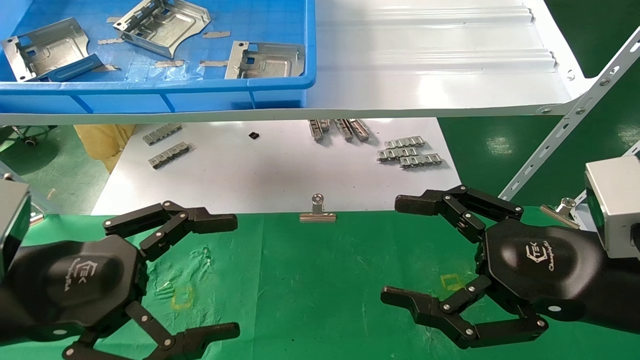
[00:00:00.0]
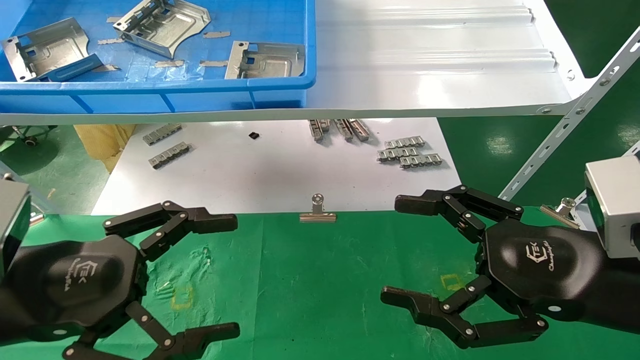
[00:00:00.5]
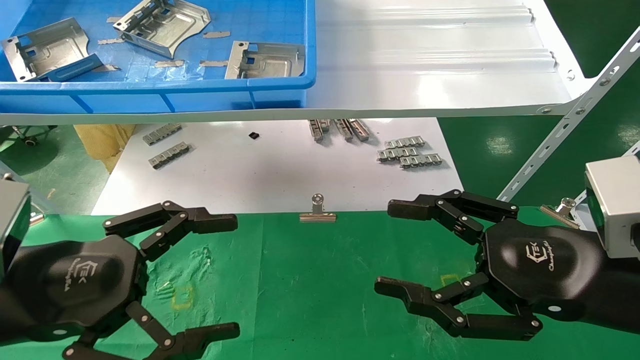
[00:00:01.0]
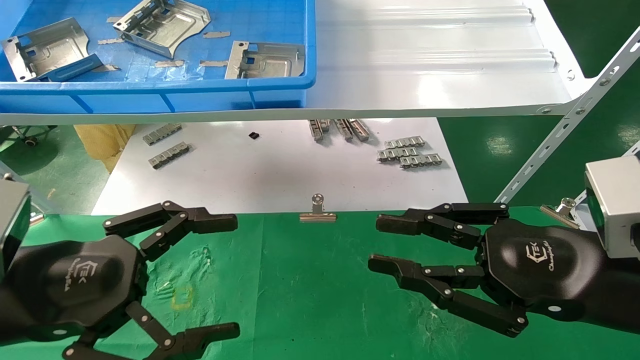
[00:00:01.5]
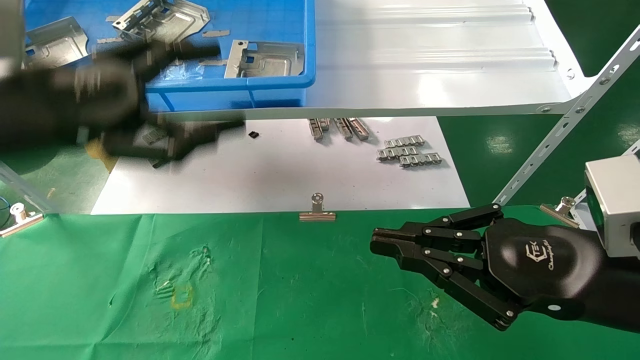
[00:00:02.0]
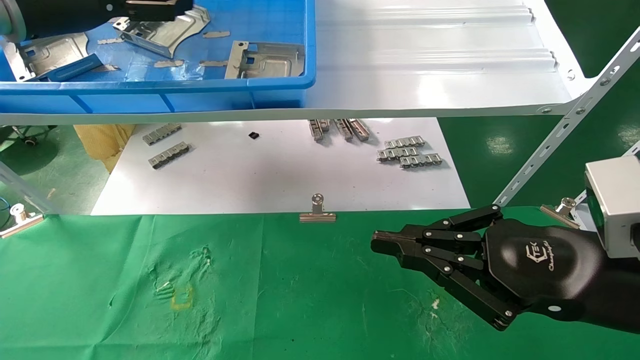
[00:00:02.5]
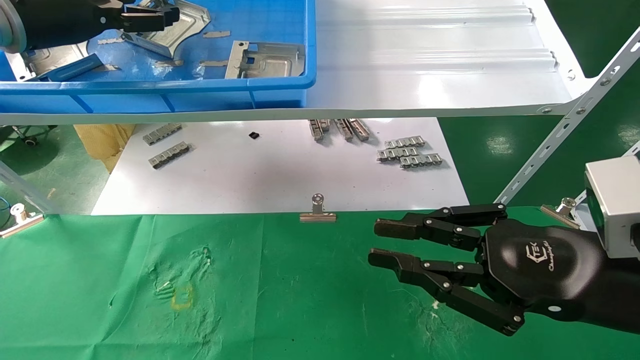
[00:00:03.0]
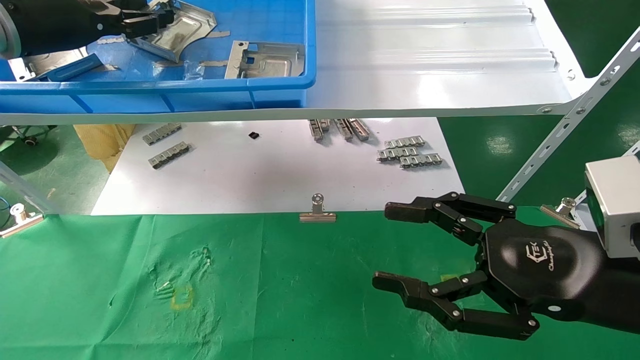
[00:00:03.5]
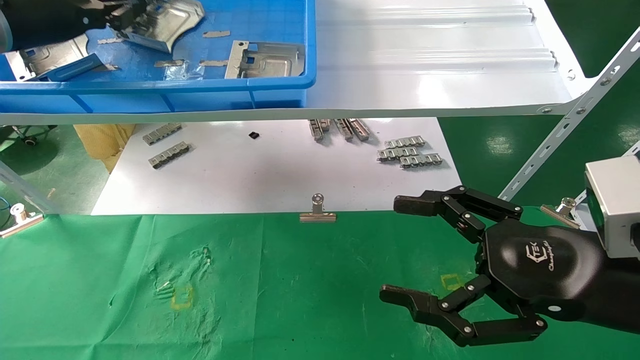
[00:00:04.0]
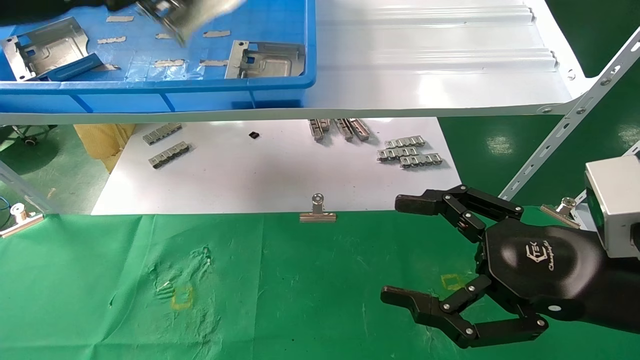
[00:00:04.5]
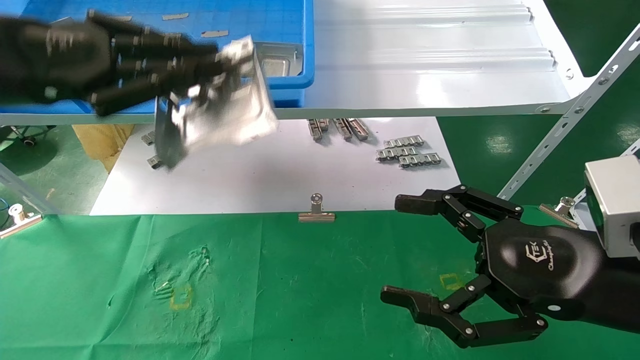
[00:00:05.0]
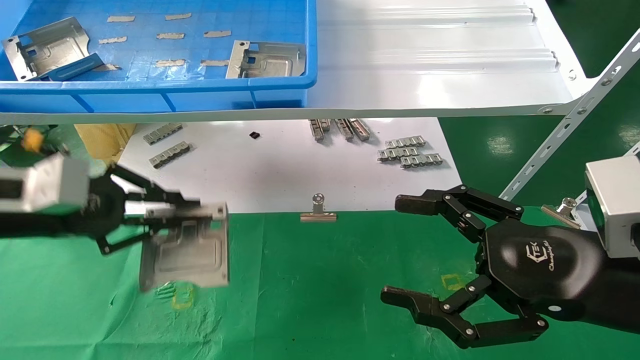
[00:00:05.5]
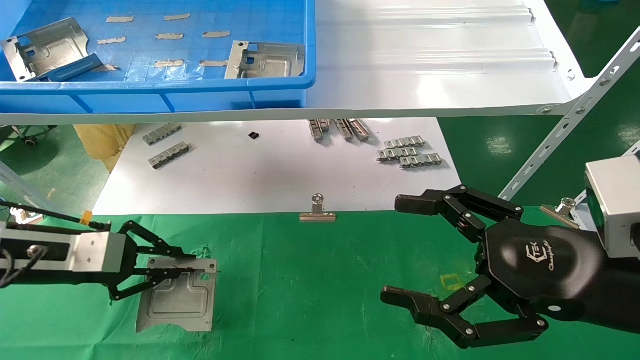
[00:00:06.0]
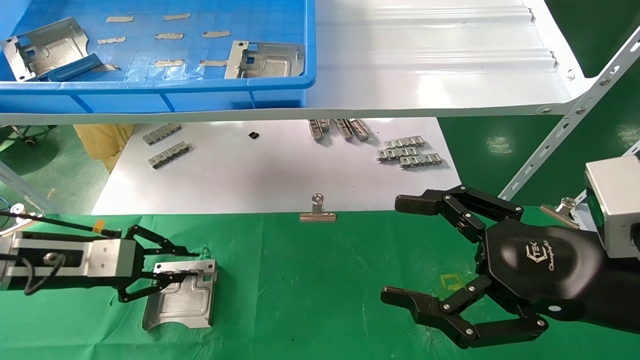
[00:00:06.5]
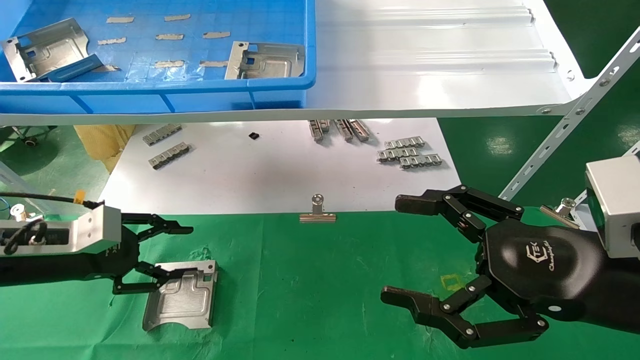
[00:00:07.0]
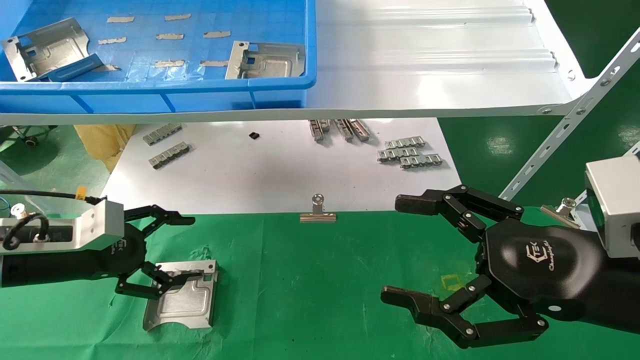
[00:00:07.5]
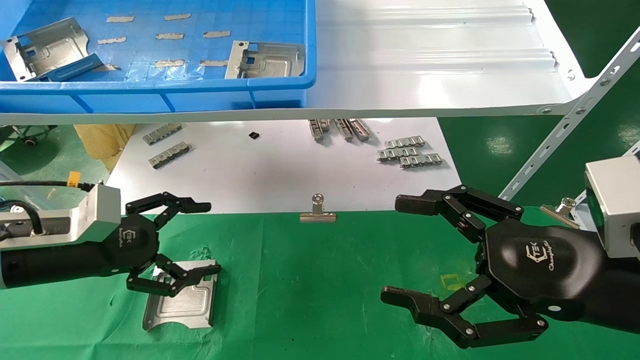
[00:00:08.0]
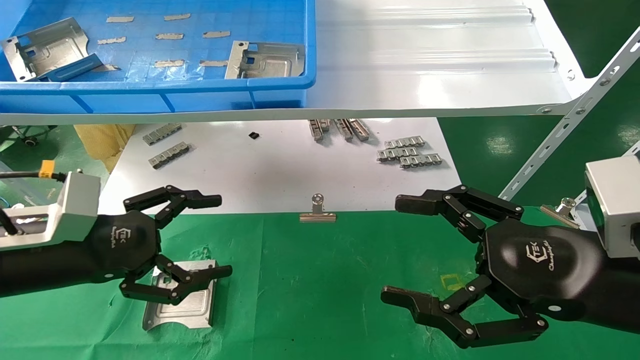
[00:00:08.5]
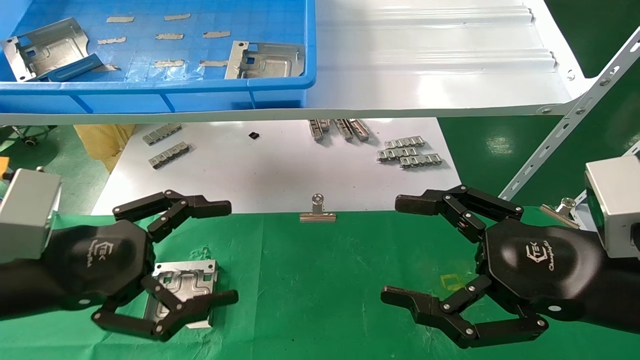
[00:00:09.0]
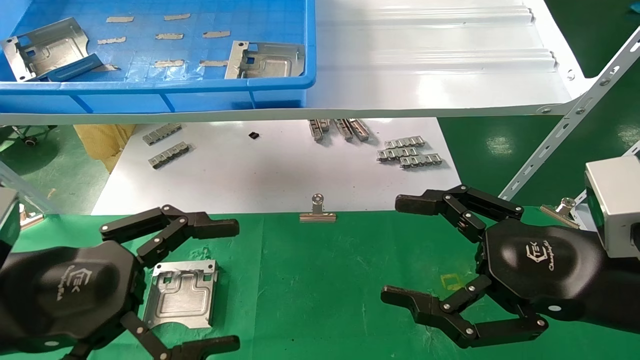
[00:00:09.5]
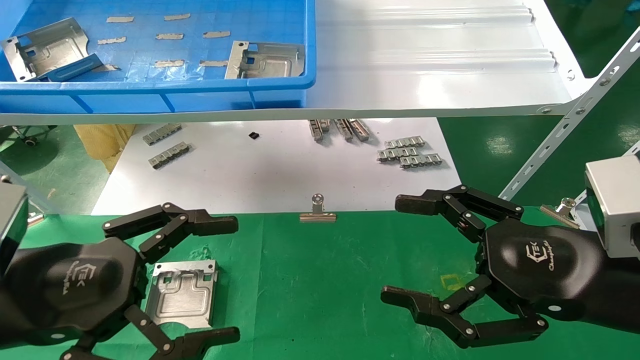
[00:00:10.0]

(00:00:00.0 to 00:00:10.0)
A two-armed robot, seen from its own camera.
Task of the whole recording: use the mechanical arm to pick up the parts and place them on the table.
Step, 00:00:02.0 - 00:00:04.5: Pick up the hard drive bracket from the feeding area.
Step, 00:00:05.0 - 00:00:07.5: Place the hard drive bracket into the box.
00:00:00.0 - 00:00:02.0: The right gripper closes its fingers. The left gripper shifts roughly 15 cm upward and forward.
00:00:02.0 - 00:00:04.0: The left gripper heads forward, upward and to the left, covering roughly 20 cm, and closes up, while the right gripper opens its fingers.
00:00:04.0 - 00:00:06.0: The left gripper goes approximately 25 cm downward.
00:00:06.0 - 00:00:08.0: The left gripper opens its fingers.
00:00:08.0 - 00:00:10.0: The left gripper shifts roughly 15 cm backward and to the right.

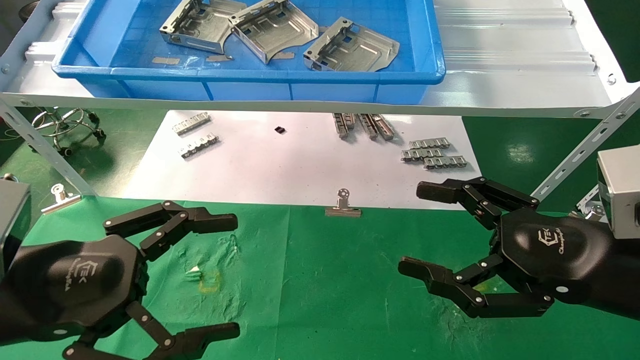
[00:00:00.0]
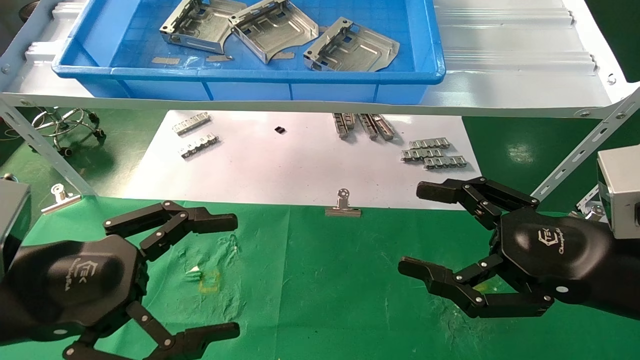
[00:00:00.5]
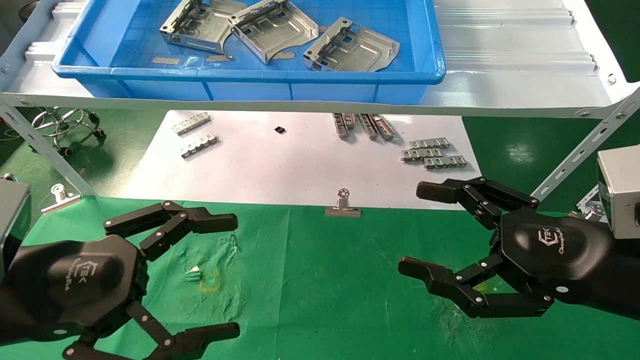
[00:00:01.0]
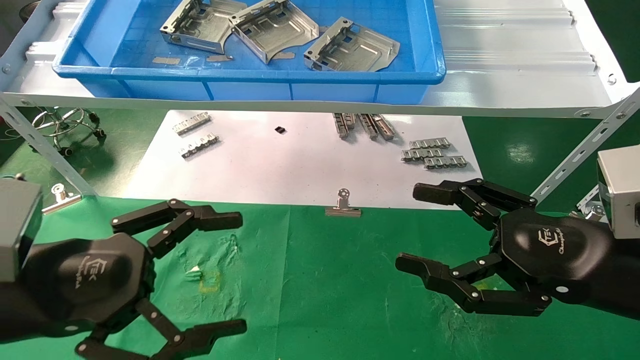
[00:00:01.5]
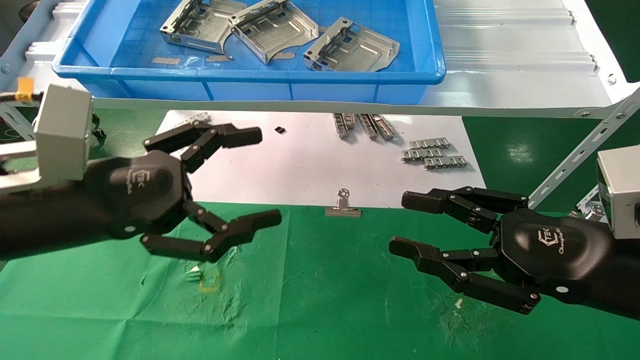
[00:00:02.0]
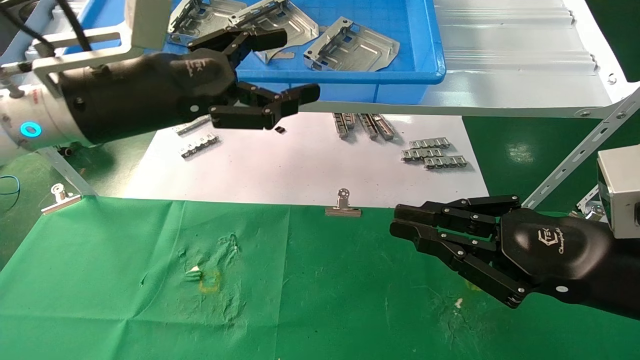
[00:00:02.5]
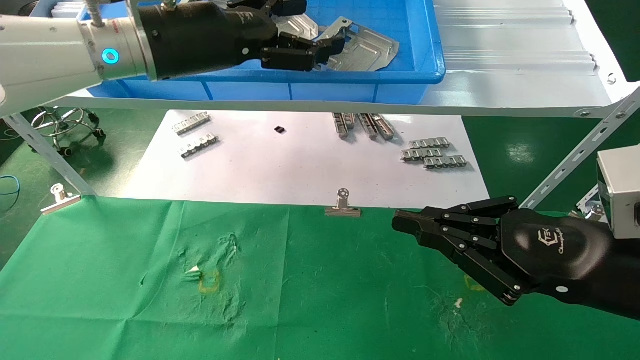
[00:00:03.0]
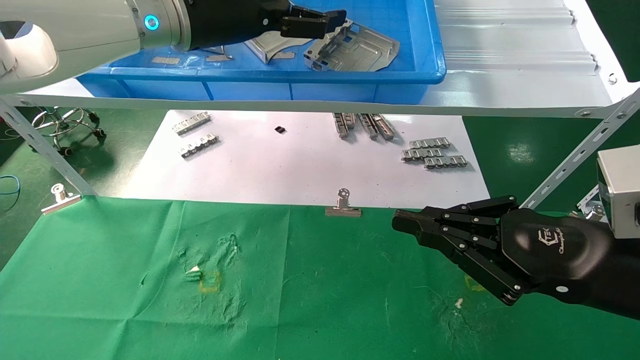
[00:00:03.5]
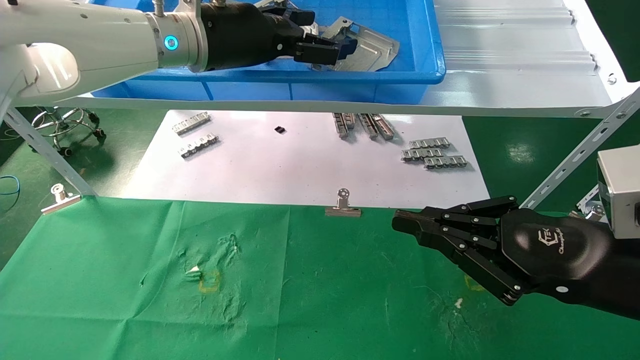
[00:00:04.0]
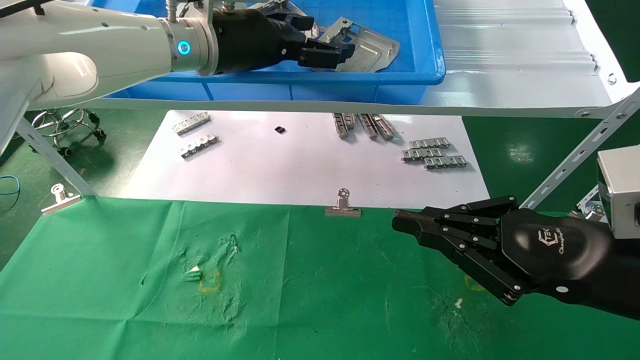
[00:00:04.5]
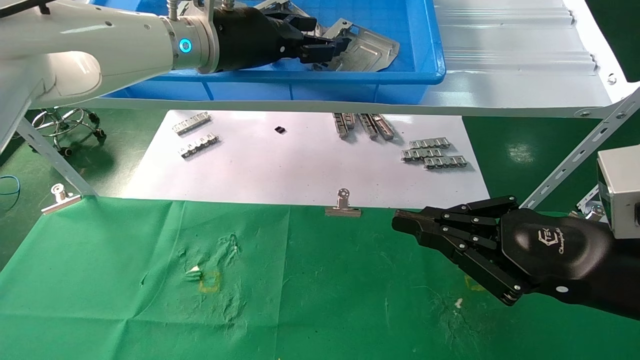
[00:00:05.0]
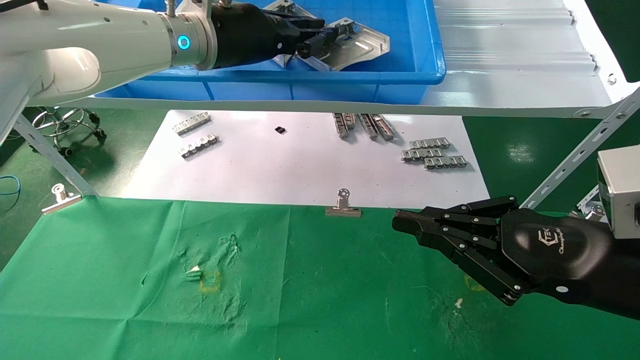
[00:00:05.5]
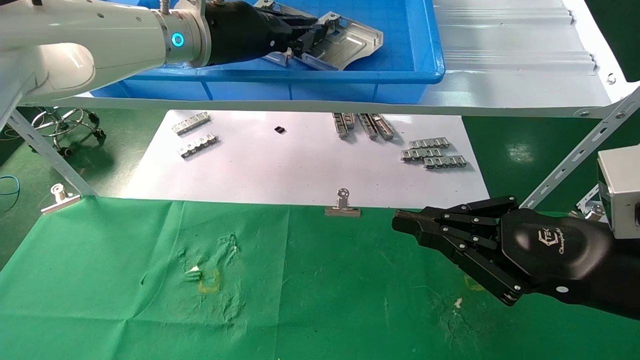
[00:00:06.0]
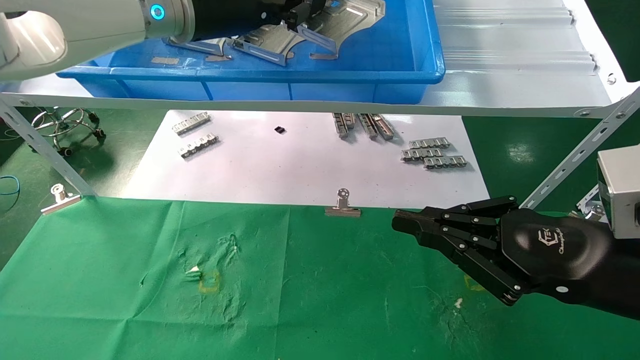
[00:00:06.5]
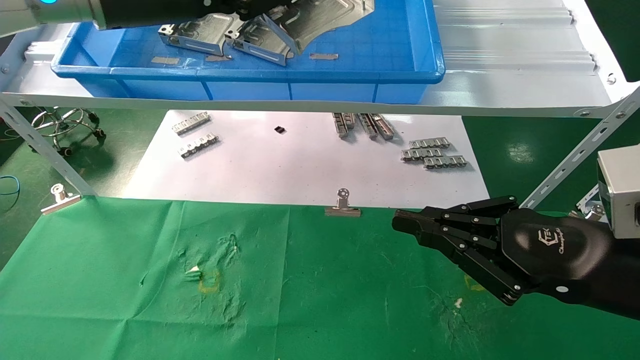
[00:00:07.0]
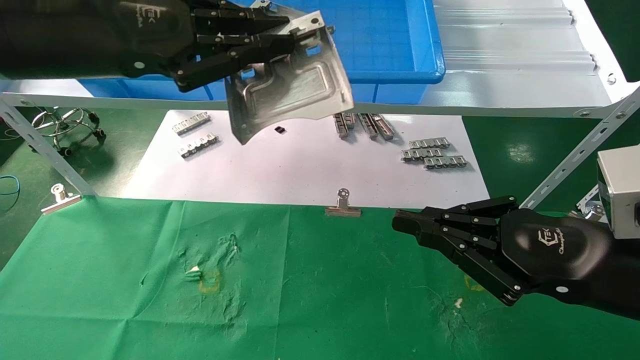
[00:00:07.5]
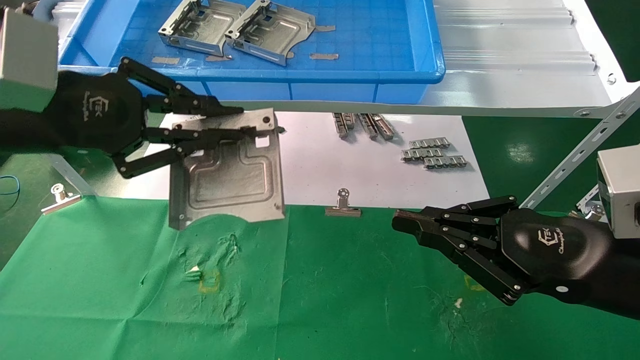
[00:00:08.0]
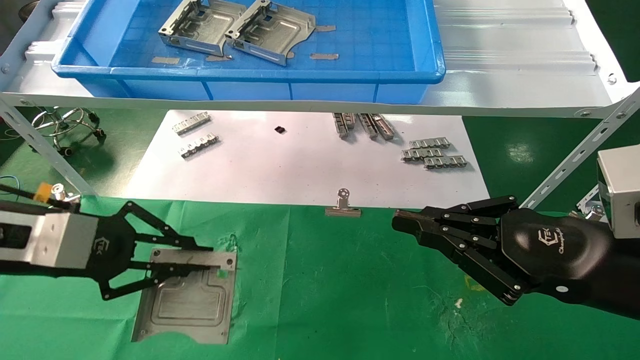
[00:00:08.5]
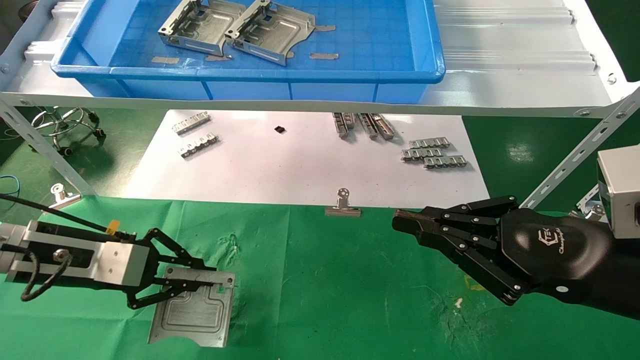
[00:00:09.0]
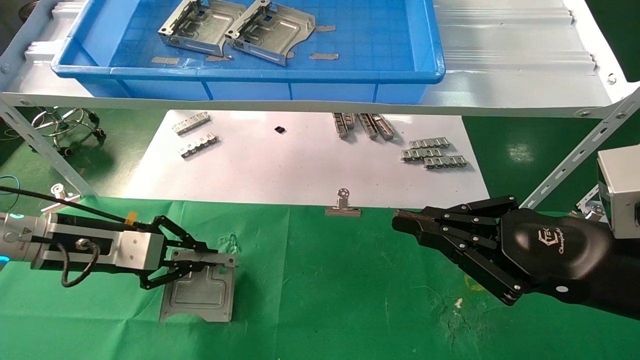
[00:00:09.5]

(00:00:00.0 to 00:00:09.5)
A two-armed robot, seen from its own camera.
Task of the whole recording: use the mechanical arm to pick up the parts and place them on the table.
Step, 00:00:02.0 - 00:00:05.5: Pick up the hard drive bracket from the feeding area.
00:00:00.0 - 00:00:02.0: The left gripper travels forward by roughly 5 cm. The right gripper closes.
00:00:02.0 - 00:00:04.0: The right gripper closes up. Meanwhile the left gripper travels forward, upward and to the right by approximately 25 cm.
00:00:04.0 - 00:00:05.5: The left gripper closes its fingers.
00:00:05.5 - 00:00:07.5: The left gripper is displaced backward and to the left by about 20 cm.
00:00:07.5 - 00:00:09.5: The left gripper heads downward, covering roughly 25 cm.
